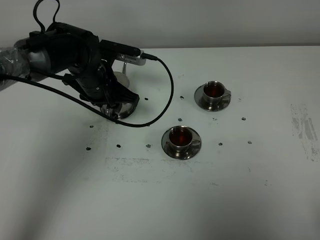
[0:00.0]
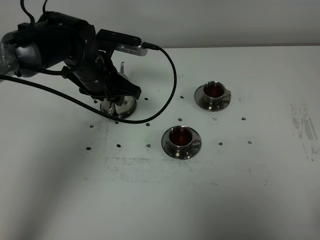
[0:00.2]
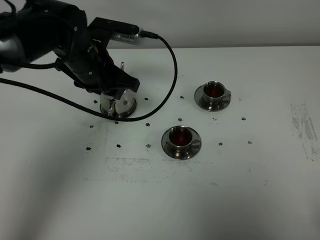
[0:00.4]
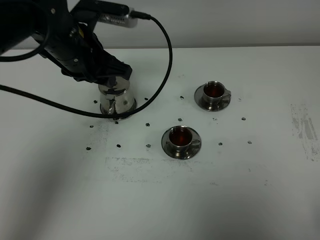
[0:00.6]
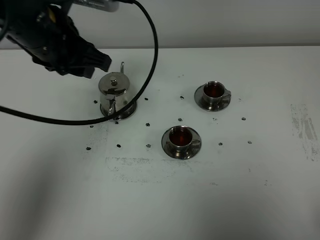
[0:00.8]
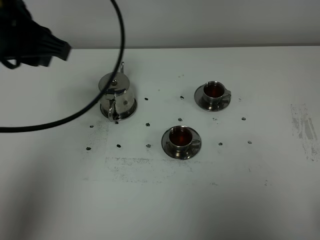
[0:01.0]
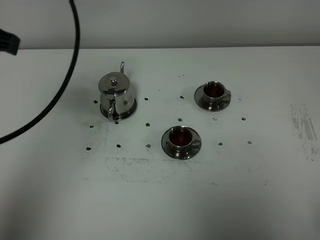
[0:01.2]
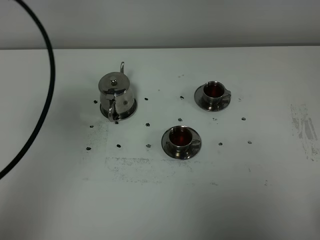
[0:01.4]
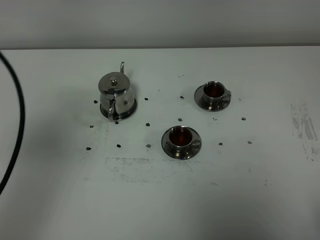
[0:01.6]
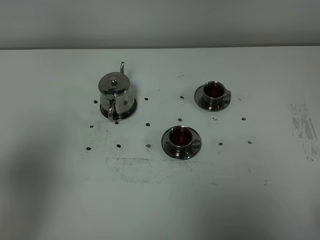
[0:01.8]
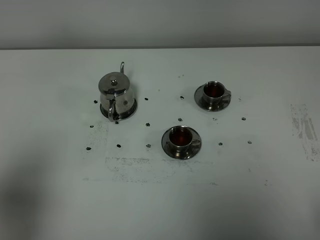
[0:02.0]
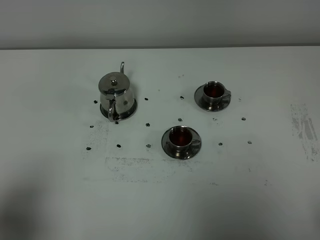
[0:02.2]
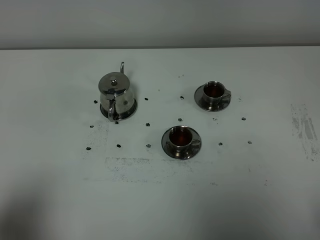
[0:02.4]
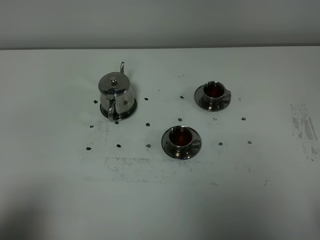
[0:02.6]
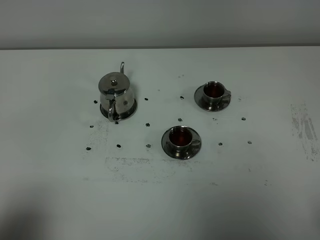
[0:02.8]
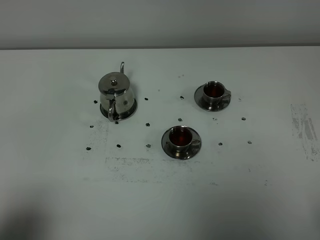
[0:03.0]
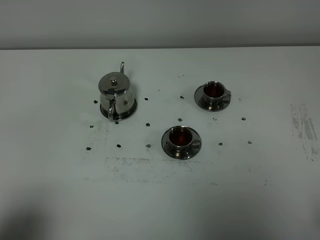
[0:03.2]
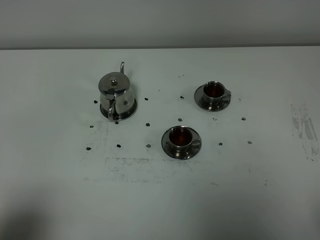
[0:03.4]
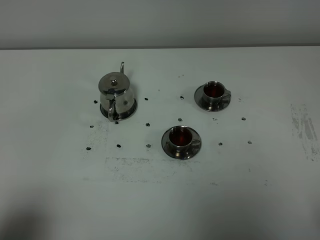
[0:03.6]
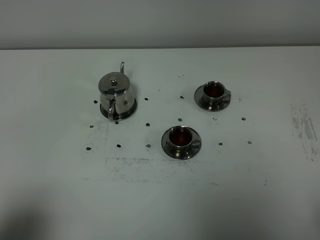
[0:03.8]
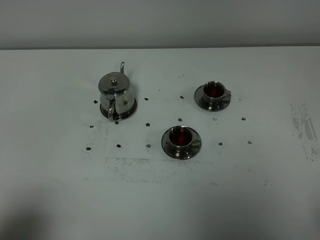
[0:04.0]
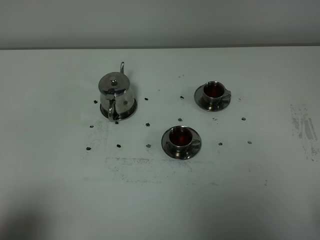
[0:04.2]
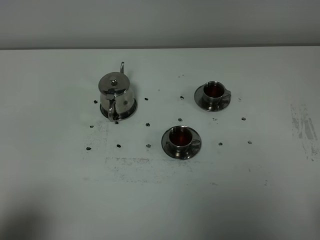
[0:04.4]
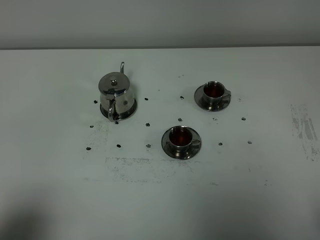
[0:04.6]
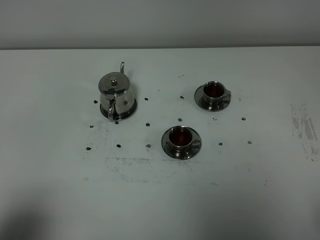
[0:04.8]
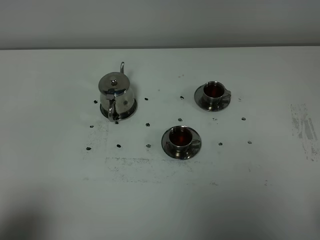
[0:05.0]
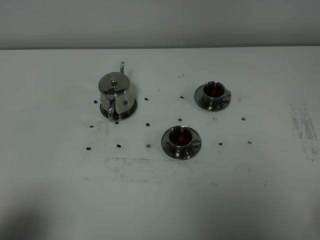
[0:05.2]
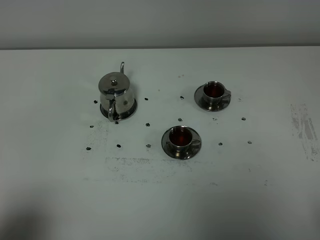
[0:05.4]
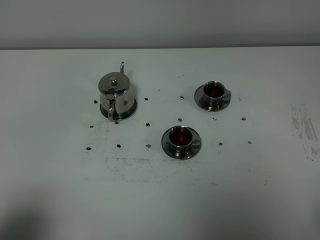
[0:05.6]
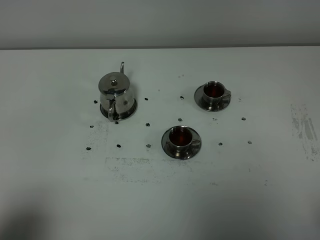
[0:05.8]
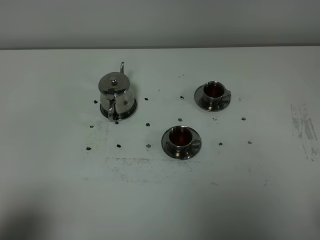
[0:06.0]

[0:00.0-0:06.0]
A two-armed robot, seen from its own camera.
Task of the whole recording: grasp the stainless steel teapot and pour the tea into the two stainless steel teacups one by one, put the stainless steel teapot back in its original place.
0.0 to 1.6 s: The left gripper moves backward, upward and to the left, roughly 35 cm.
1.6 to 3.0 s: The left gripper heads backward and downward, covering approximately 20 cm.
3.0 to 6.0 s: The two grippers keep their place.

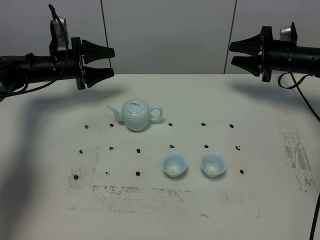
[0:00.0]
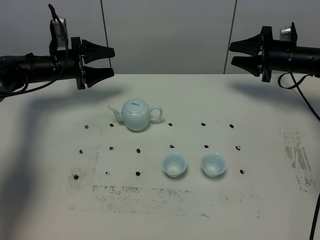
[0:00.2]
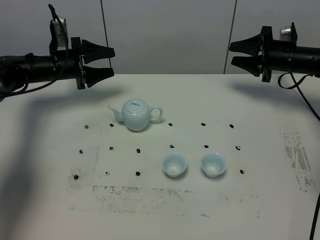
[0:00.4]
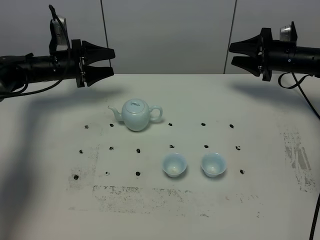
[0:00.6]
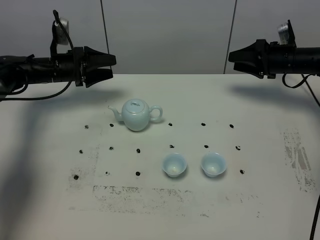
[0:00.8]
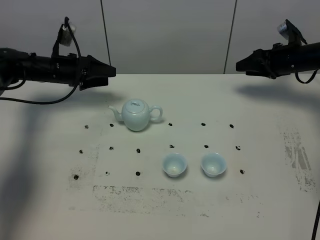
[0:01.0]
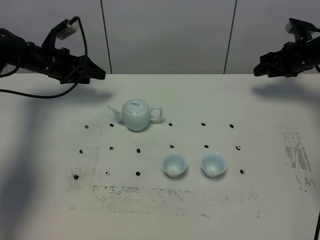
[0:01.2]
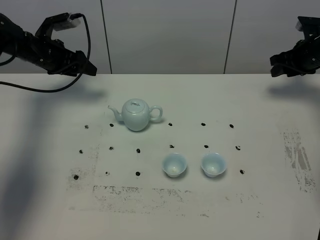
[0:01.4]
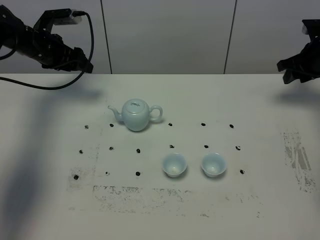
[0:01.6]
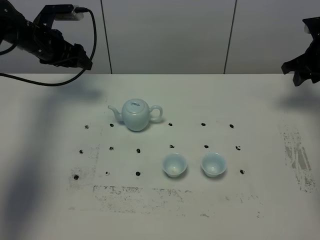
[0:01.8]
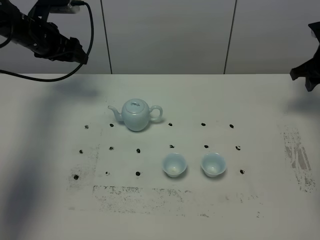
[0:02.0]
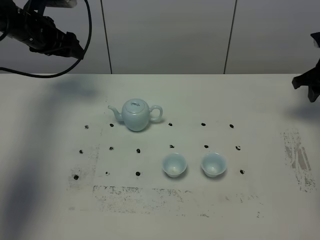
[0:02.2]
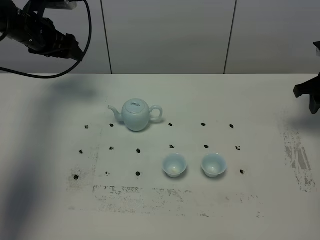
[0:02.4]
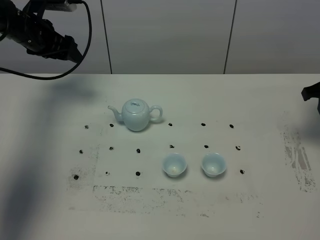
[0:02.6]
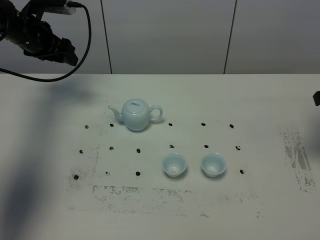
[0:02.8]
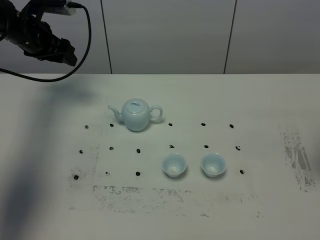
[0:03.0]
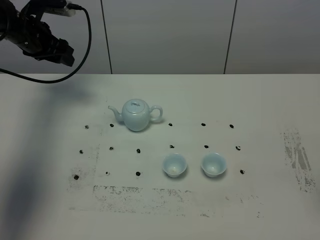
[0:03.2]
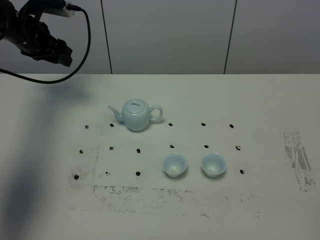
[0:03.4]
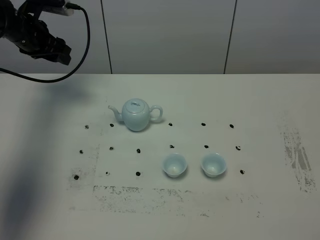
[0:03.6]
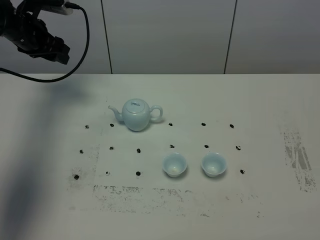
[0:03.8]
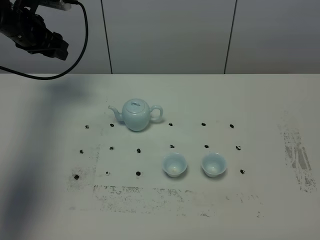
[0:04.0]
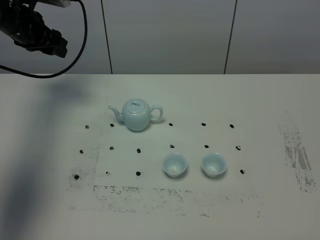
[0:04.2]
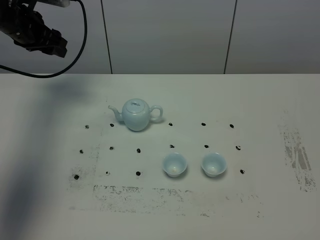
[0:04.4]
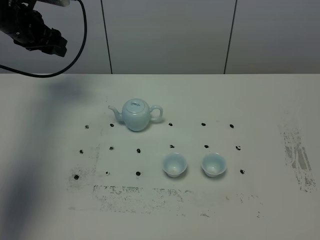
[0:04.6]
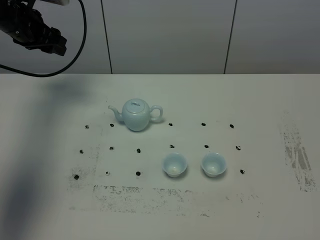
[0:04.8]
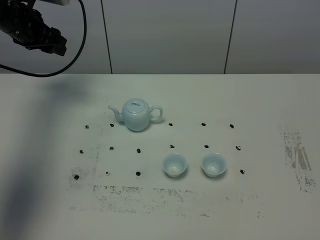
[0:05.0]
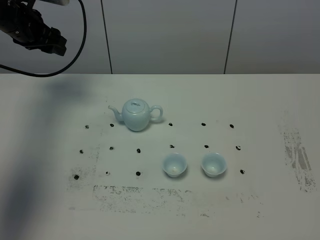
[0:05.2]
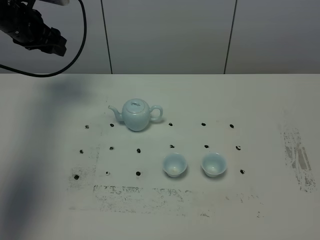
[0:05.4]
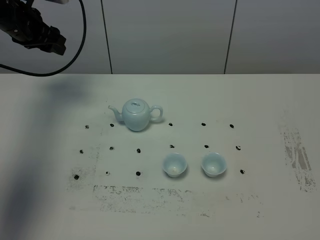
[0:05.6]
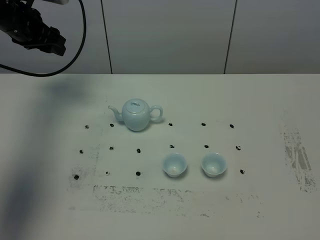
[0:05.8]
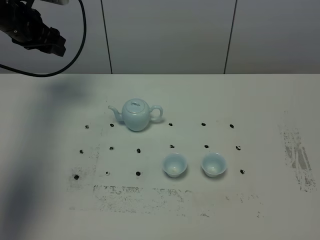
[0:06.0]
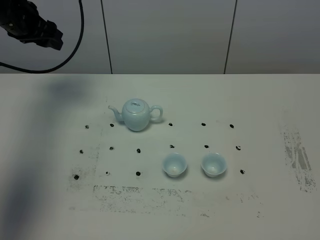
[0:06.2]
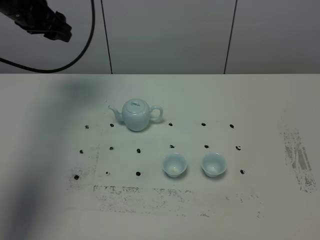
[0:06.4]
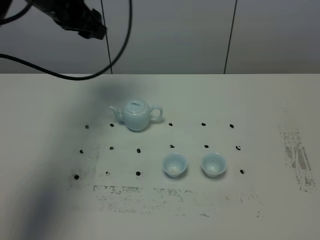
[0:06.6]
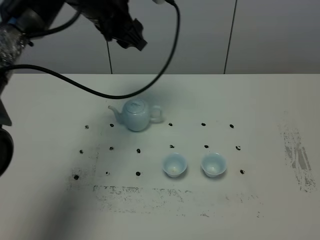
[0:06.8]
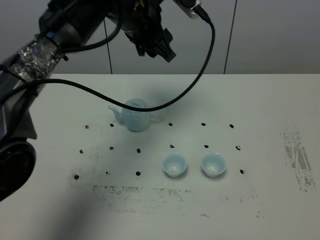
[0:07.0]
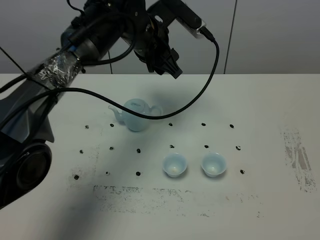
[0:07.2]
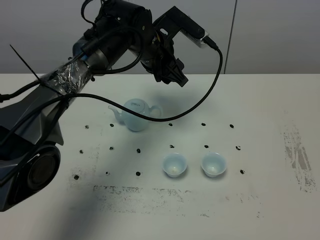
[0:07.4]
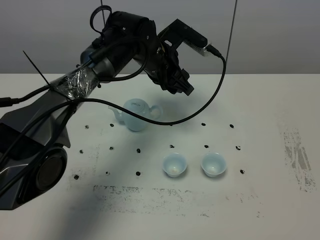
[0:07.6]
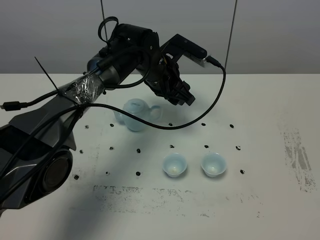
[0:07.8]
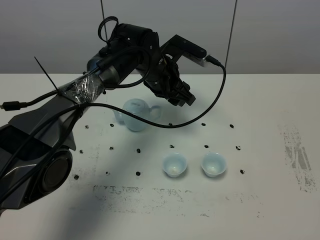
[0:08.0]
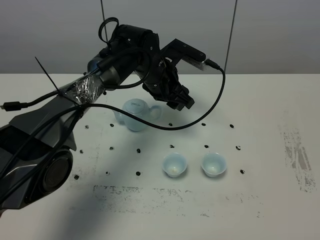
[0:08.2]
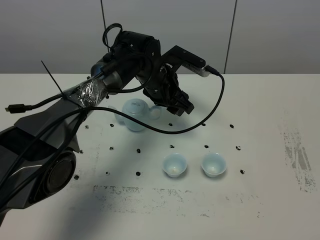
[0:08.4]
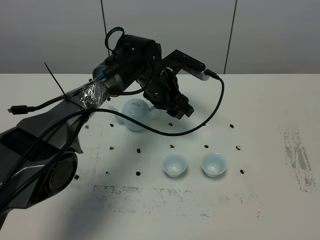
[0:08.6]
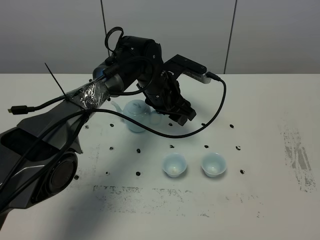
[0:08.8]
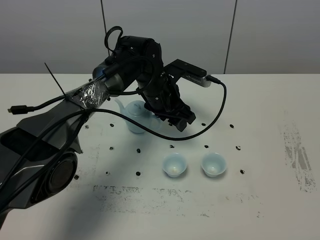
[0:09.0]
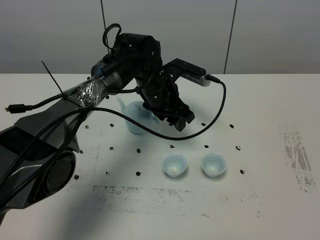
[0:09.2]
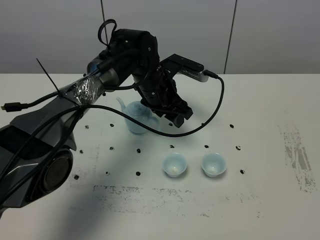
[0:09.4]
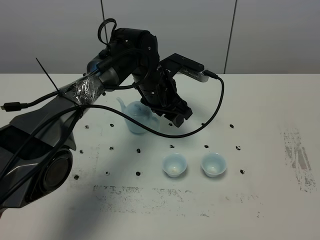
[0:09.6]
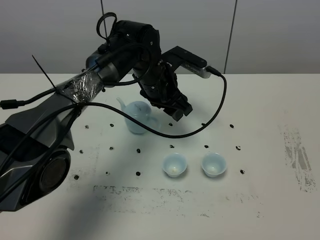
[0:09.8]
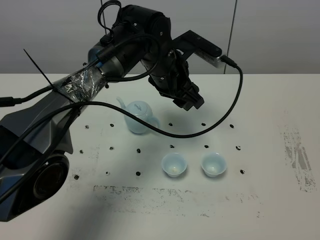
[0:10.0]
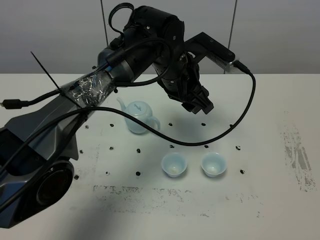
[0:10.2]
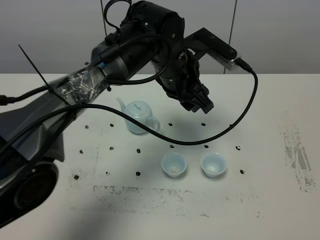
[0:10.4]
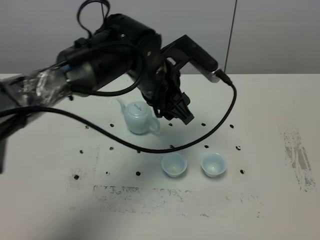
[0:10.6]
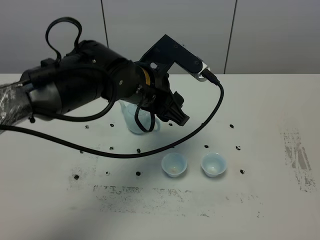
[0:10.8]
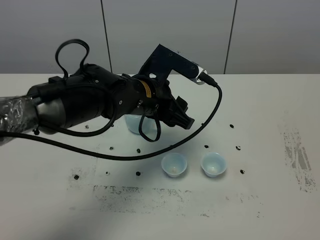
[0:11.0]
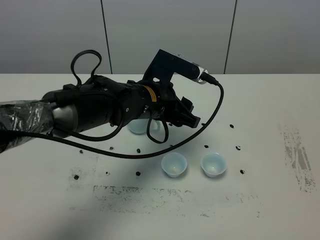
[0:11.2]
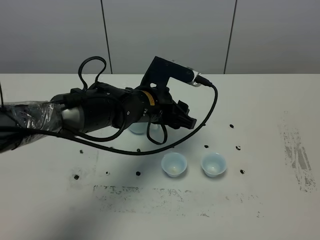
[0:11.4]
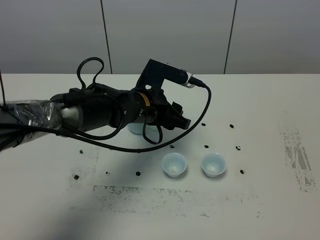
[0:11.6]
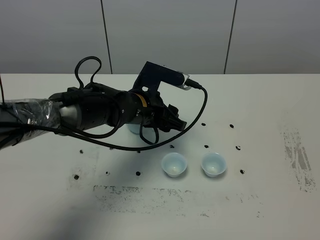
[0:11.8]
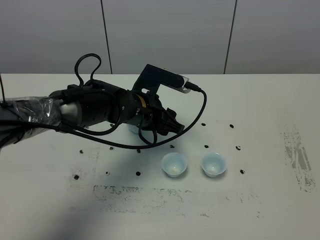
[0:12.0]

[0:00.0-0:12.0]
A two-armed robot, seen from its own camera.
Task of the whole recording: grasp the blue porcelain teapot and pour the tea into the two blue porcelain teacups one by one, put the blue porcelain teapot back in its original place.
0.0 to 1.6 s: The left gripper travels upward by roughly 5 cm. Meanwhile the right gripper heads to the right, covering approximately 5 cm.
1.6 to 3.0 s: The right gripper is displaced backward and upward by about 25 cm.
4.4 to 6.0 s: Both grippers stay put.
6.0 to 7.6 s: The left gripper goes about 25 cm to the right.
7.6 to 9.0 s: The left gripper moves downward, about 5 cm.
9.0 to 10.4 s: The left gripper moves upward and backward, roughly 10 cm.
10.4 to 12.0 s: The left gripper is displaced downward and to the left by about 10 cm.

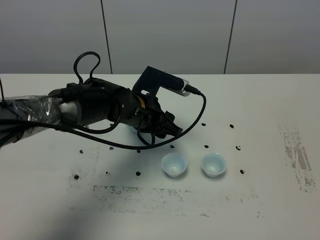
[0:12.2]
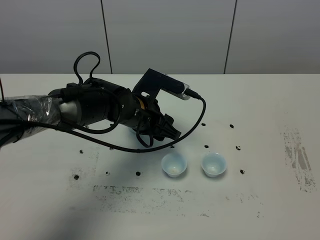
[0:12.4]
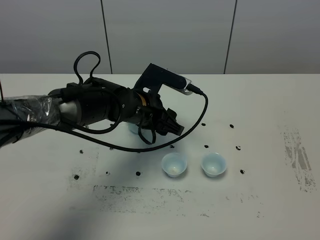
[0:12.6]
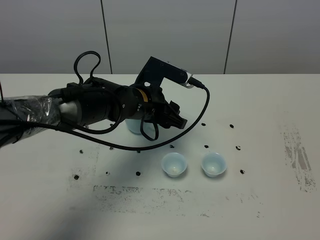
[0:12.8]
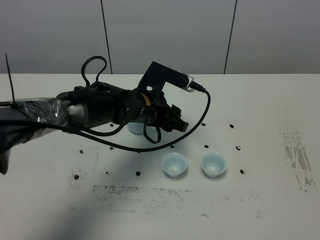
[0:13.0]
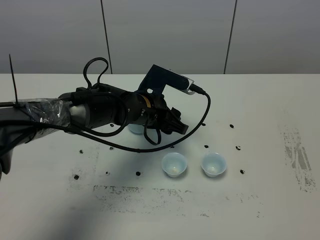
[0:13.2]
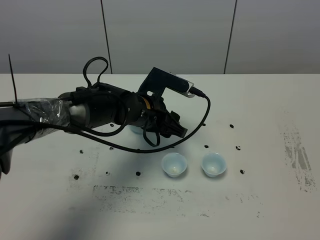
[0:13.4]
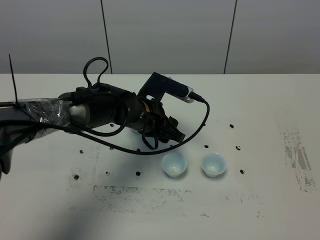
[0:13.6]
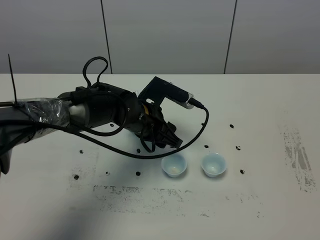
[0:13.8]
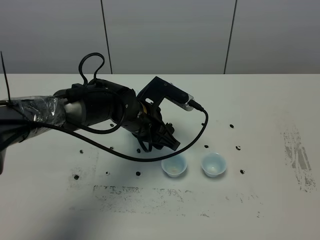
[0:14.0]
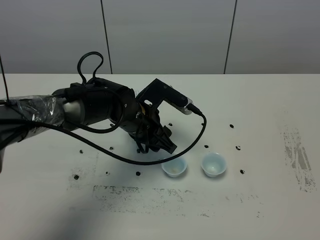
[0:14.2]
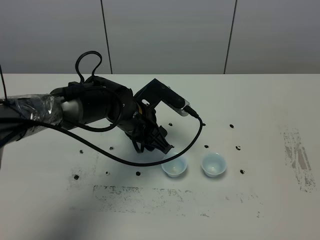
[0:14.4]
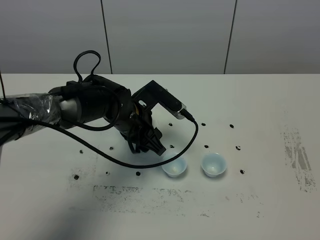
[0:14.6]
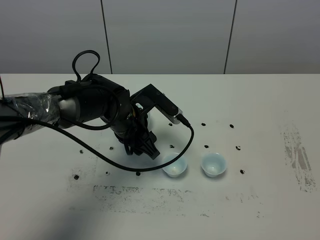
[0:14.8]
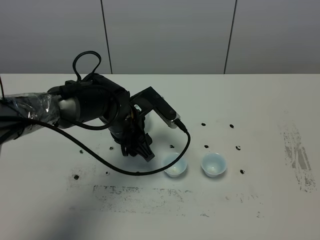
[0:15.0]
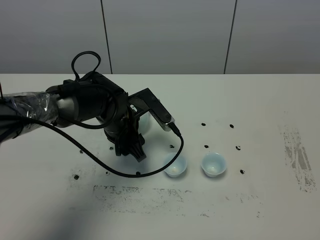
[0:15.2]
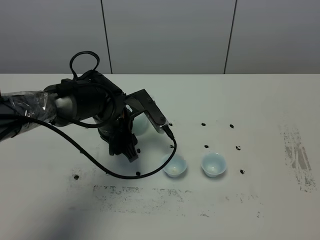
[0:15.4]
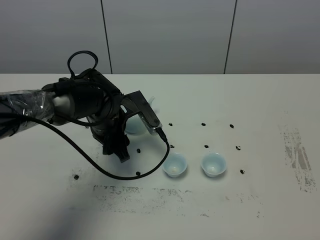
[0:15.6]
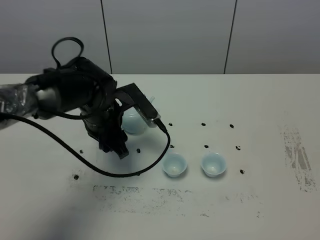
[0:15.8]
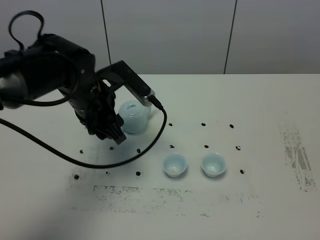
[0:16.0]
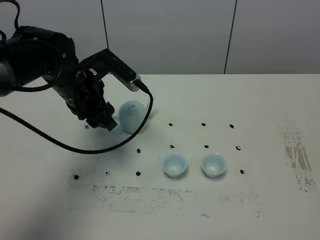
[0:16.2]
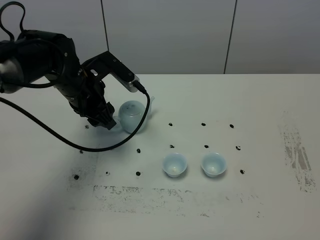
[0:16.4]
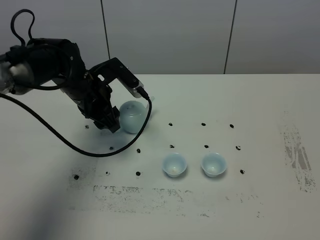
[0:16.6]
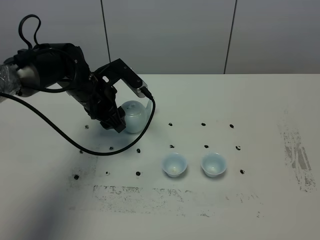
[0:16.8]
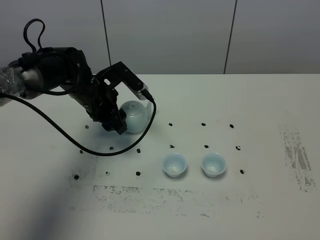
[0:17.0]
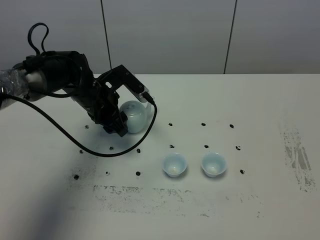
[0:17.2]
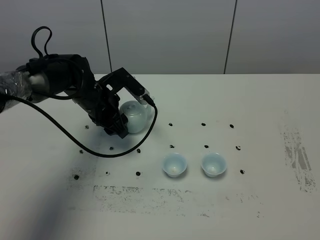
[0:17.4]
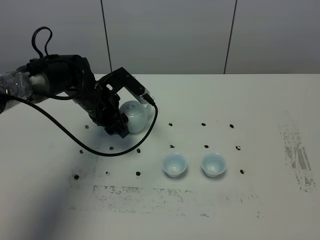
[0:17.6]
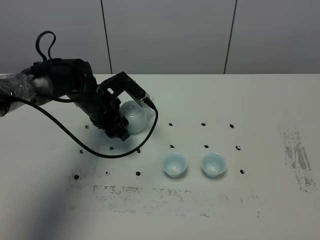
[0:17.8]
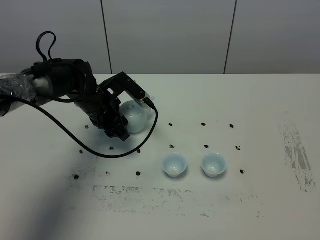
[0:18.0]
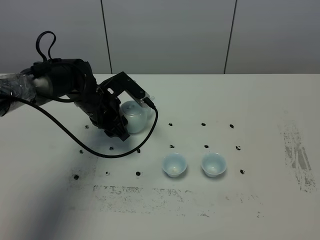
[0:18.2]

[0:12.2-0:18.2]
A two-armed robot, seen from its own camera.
Task of the whole recording: grasp the blue porcelain teapot and pour the tea into the two blue porcelain teacups one by one, put the blue porcelain teapot back in its original place.
12.2 to 13.8 s: The grippers move only a little.
15.2 to 16.6 s: The left gripper is displaced to the left by approximately 5 cm.
16.6 to 18.2 s: The left gripper moves about 5 cm.
